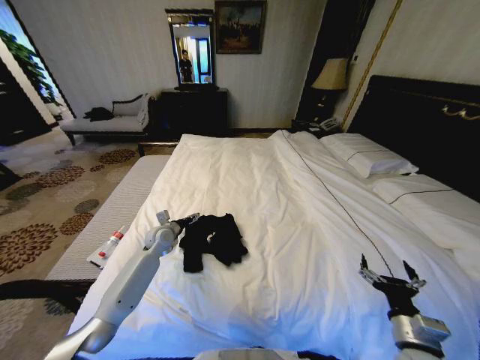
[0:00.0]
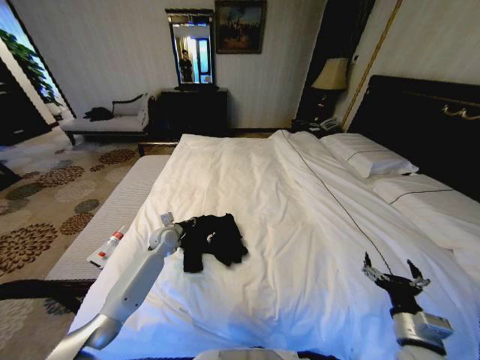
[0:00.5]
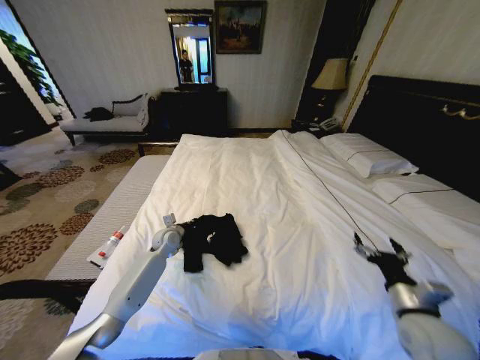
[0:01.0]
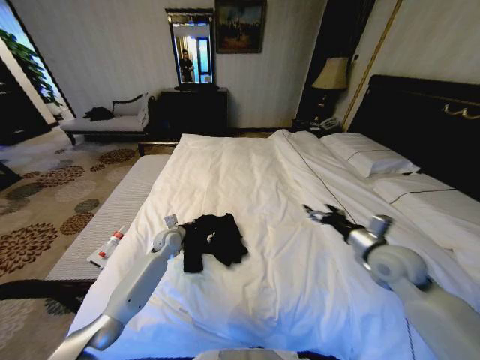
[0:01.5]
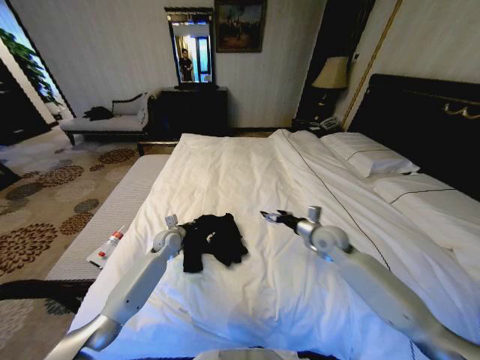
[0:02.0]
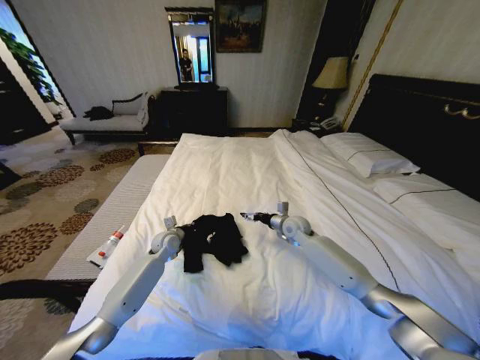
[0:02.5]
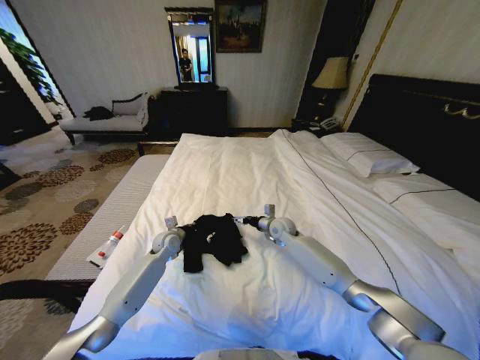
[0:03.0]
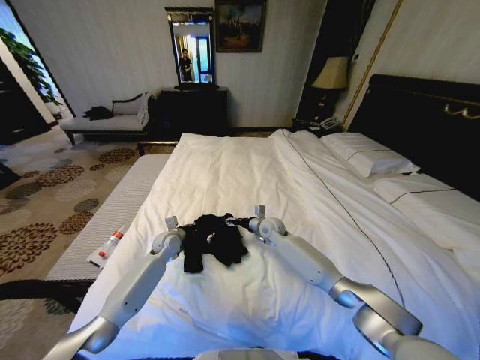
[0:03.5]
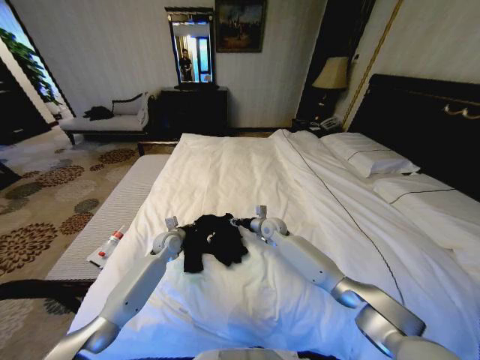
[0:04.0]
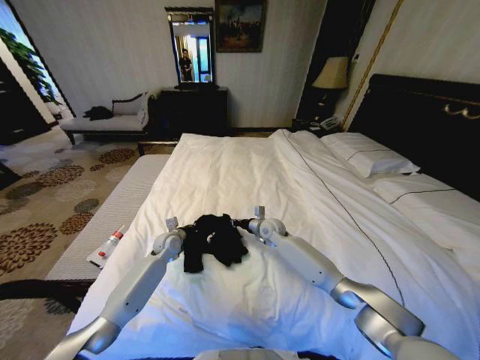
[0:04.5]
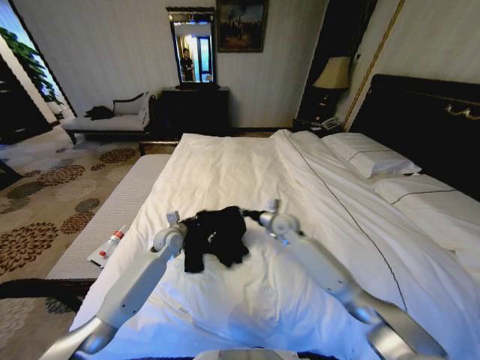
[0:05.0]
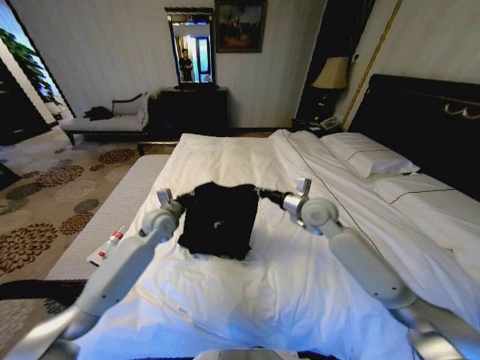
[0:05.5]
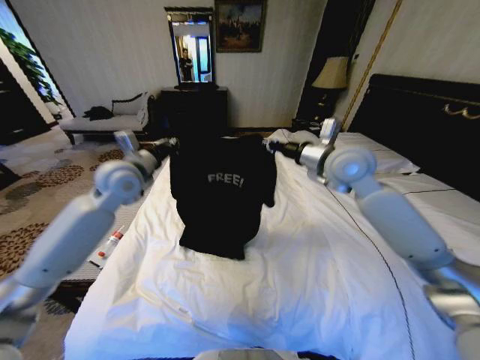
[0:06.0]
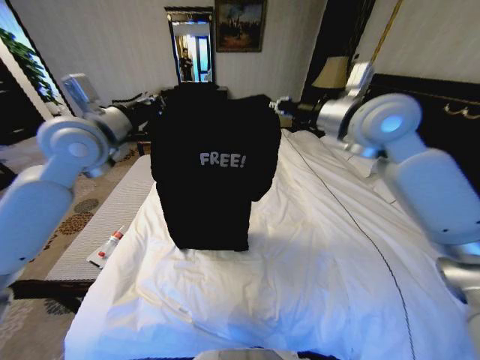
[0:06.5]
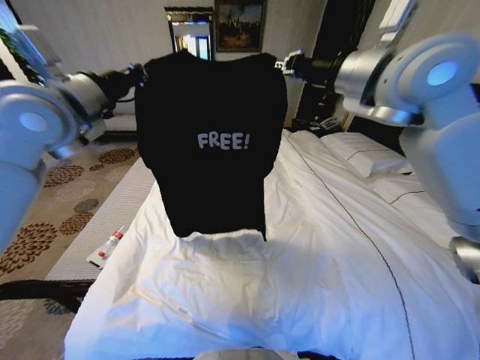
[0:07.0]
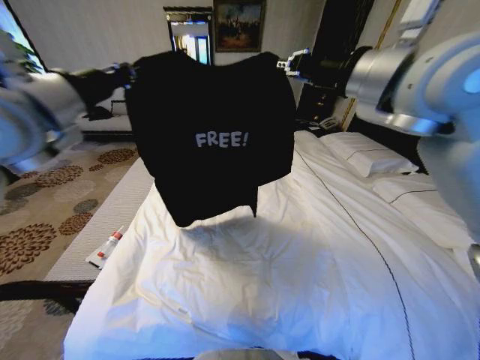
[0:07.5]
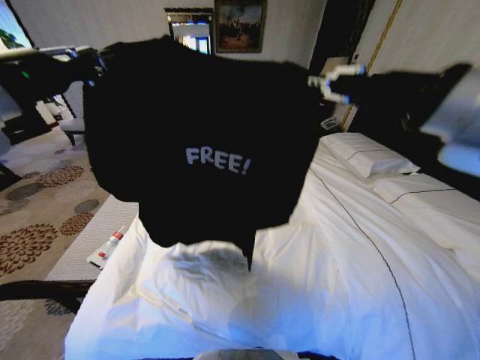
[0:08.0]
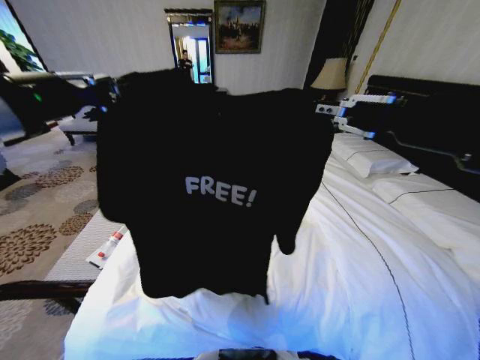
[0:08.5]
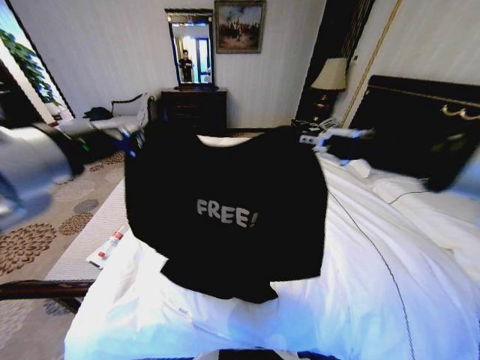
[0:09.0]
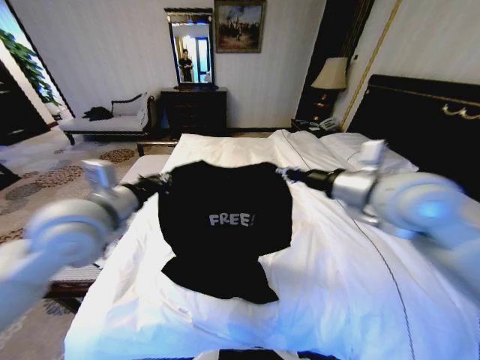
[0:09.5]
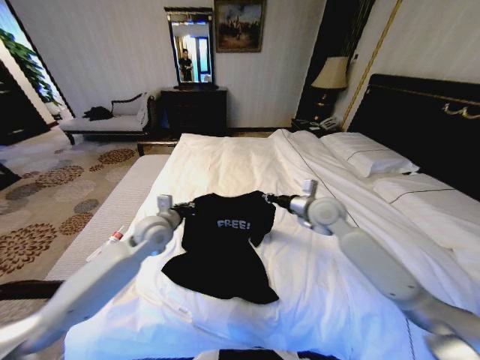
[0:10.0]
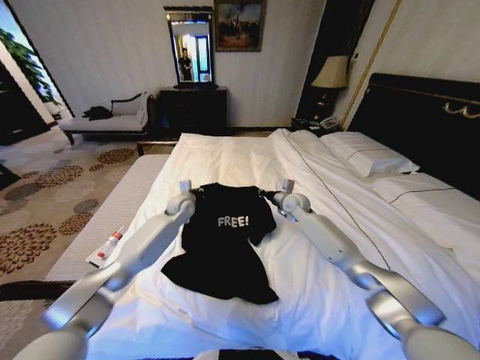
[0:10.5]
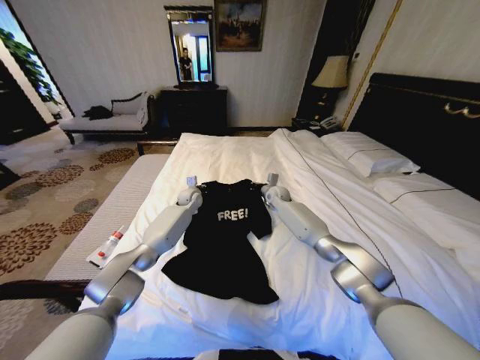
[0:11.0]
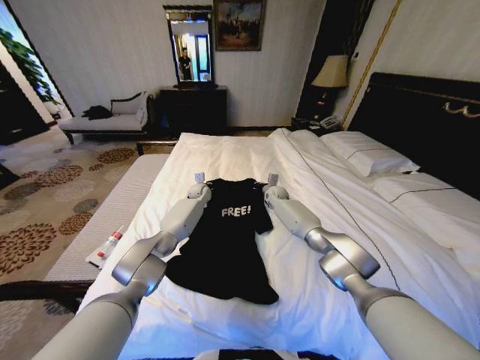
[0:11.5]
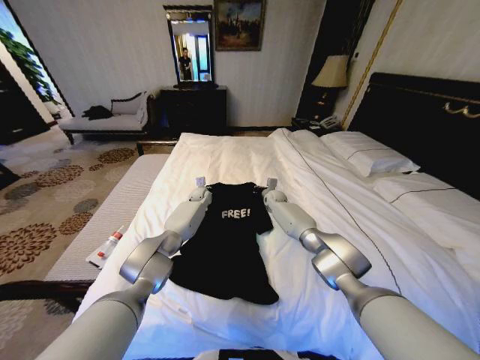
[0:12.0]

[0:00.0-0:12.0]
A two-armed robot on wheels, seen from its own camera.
Task of the whole recording: Fold the clothes on the bed.
0:00.0 to 0:02.0: The left gripper closes up. Meanwhile the right gripper moves forward, roughly 30 cm.
0:02.0 to 0:04.0: The right gripper is displaced to the left, forward and downward by some 15 cm, and closes its fingers.
0:04.0 to 0:06.0: The grippers both shift upward by about 30 cm. The right gripper closes.
0:06.0 to 0:08.0: The two grippers go some 25 cm backward and upward.
0:08.0 to 0:10.0: Both grippers travel together downward and forward, approximately 35 cm.
0:10.0 to 0:12.0: The right gripper travels forward and downward by some 30 cm, while the left gripper goes roughly 25 cm forward.

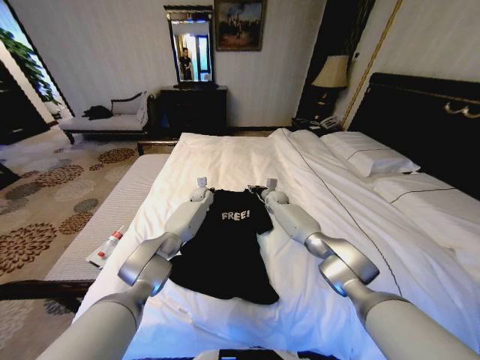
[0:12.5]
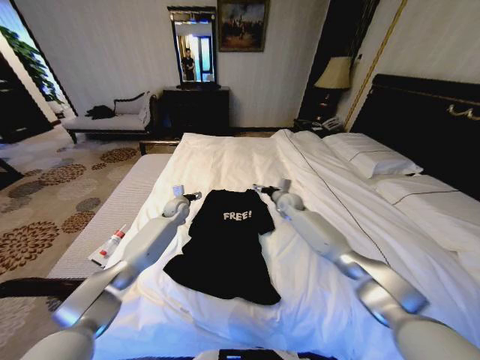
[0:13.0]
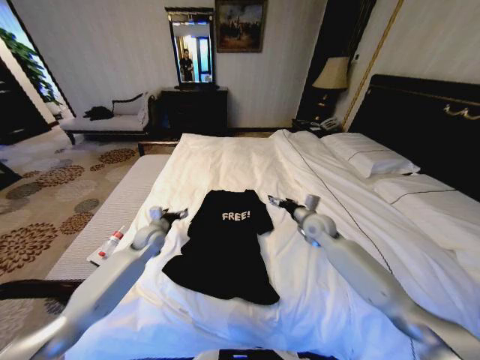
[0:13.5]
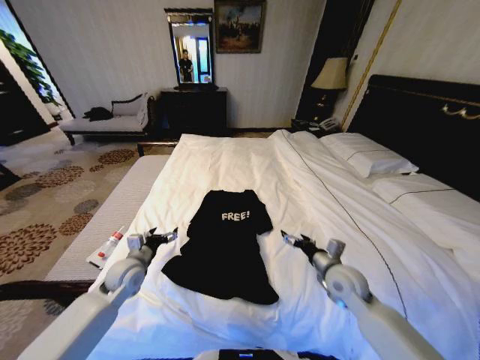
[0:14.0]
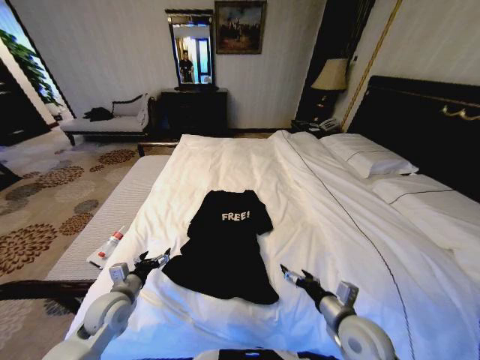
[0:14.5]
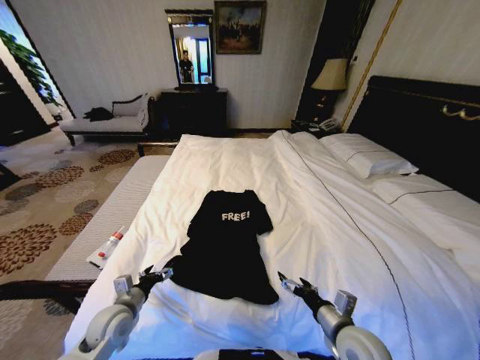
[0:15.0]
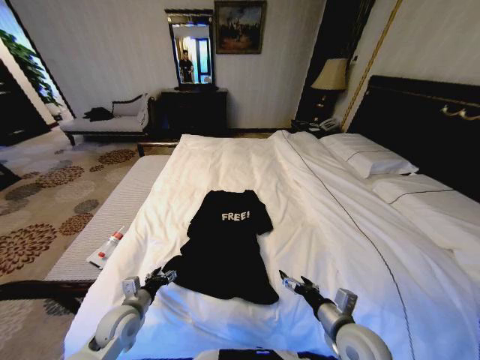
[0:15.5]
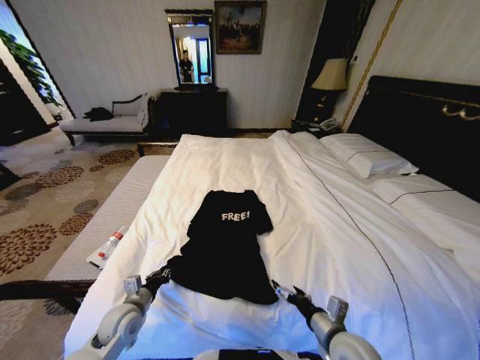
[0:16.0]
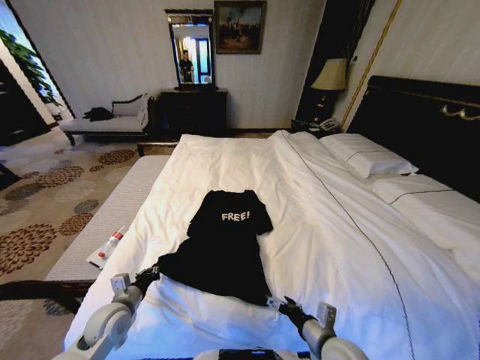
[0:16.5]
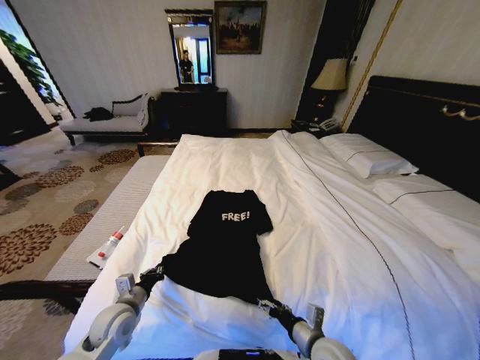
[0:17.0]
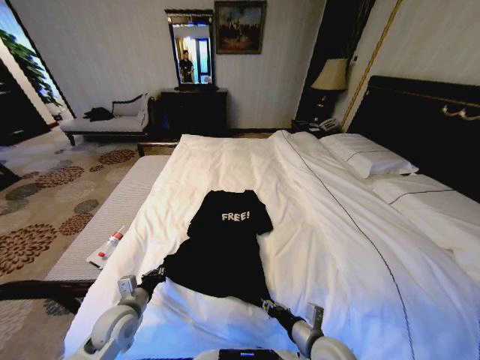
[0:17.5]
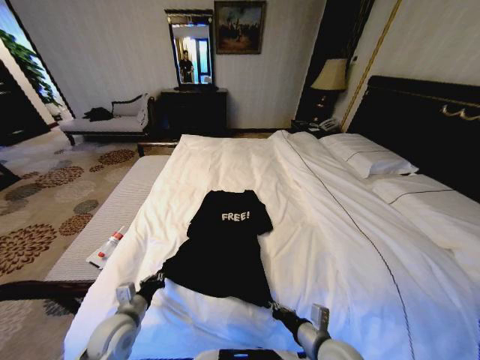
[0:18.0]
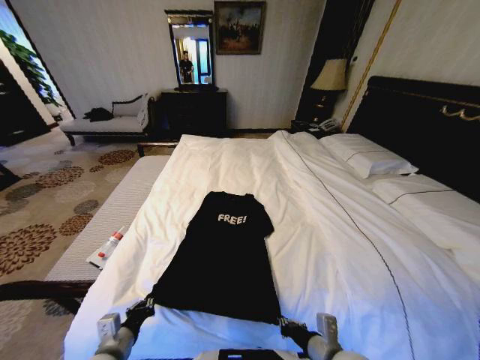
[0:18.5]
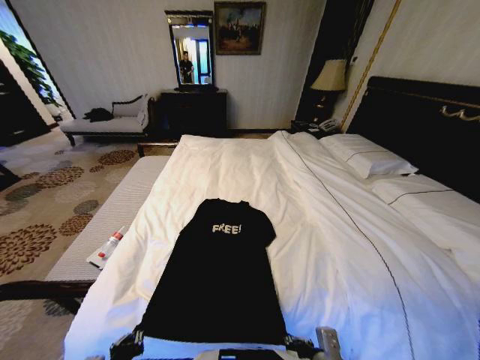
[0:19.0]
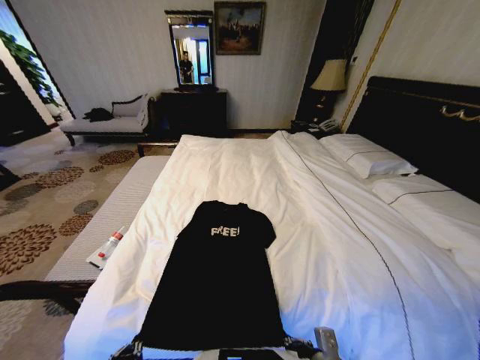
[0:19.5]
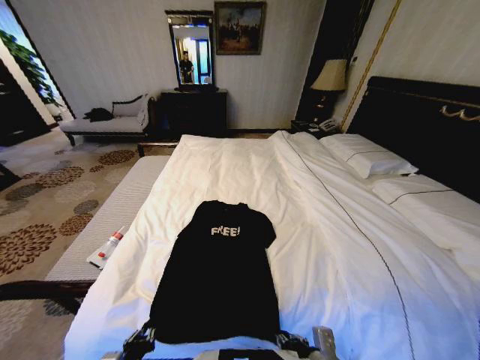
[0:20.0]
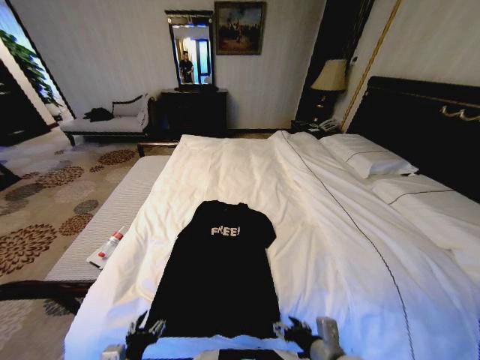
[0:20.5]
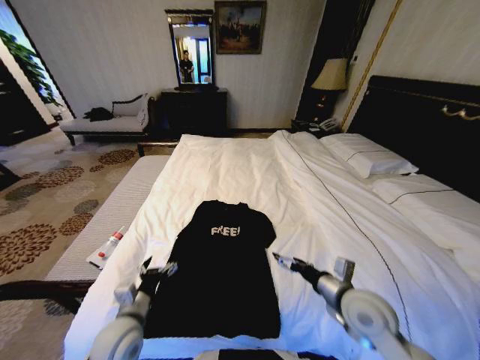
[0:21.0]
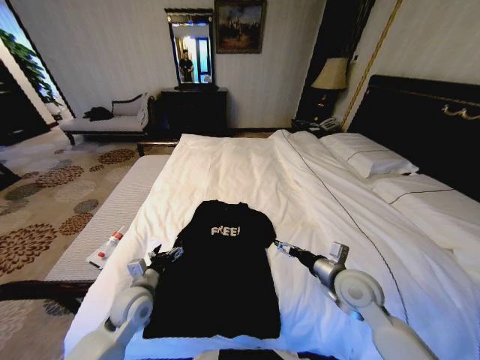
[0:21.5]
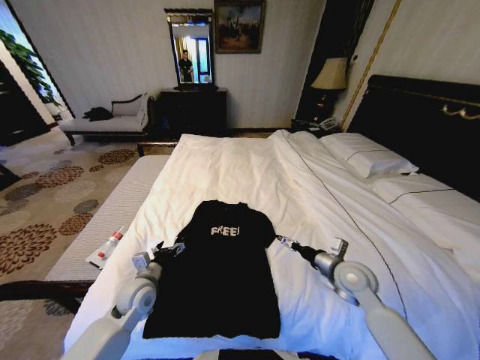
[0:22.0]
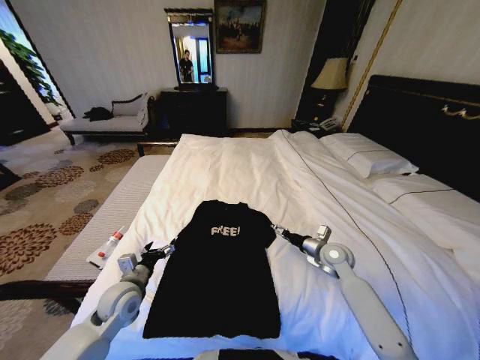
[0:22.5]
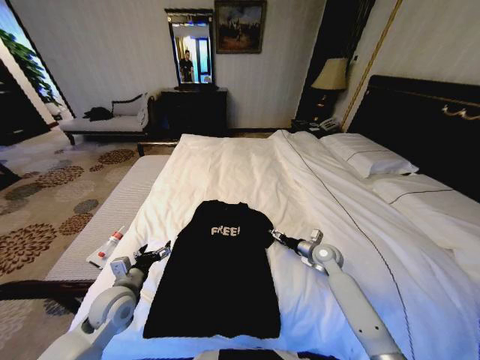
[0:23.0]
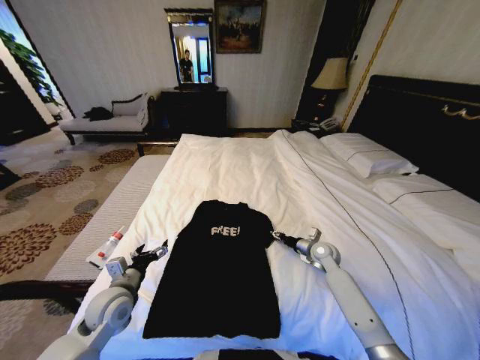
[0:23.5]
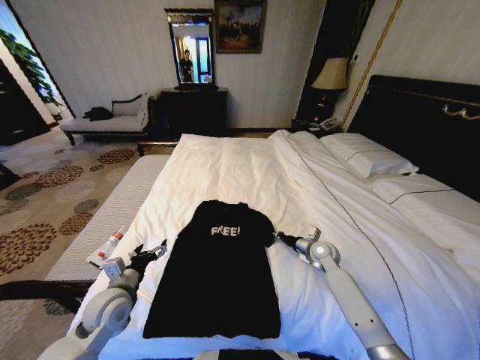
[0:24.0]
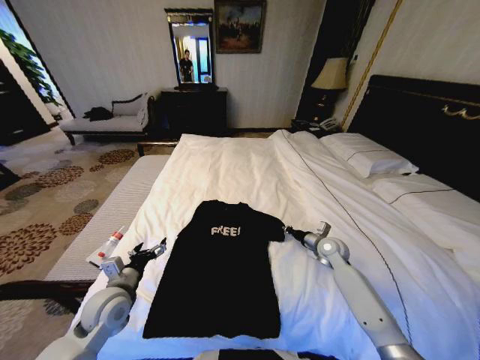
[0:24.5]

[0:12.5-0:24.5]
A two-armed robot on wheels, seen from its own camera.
Task of the whole recording: Fold the clothes on the bed.
0:12.5 to 0:14.5: The left gripper is displaced backward and to the left by approximately 50 cm, and opens its fingers. Meanwhile the right gripper moves backward, some 50 cm, and opens up.
0:14.5 to 0:16.5: The right gripper moves some 5 cm, while the left gripper closes.
0:16.5 to 0:18.5: The left gripper heads backward, covering some 10 cm; the right gripper closes.
0:18.5 to 0:20.5: The left gripper is displaced backward by some 5 cm, and opens its fingers, while the right gripper opens its fingers.
0:20.5 to 0:22.5: Both grippers move forward, about 25 cm.
0:22.5 to 0:24.5: The right gripper shifts by roughly 5 cm, and closes its fingers.

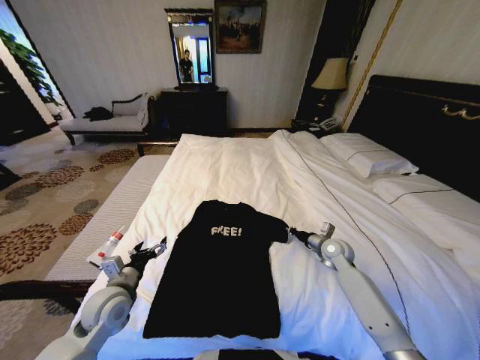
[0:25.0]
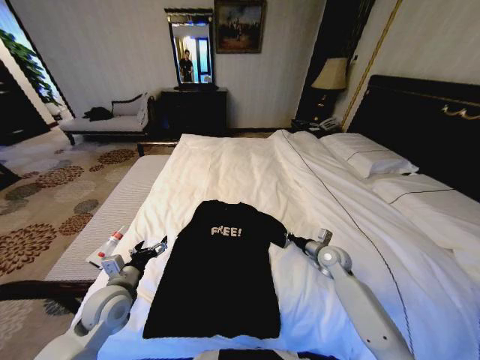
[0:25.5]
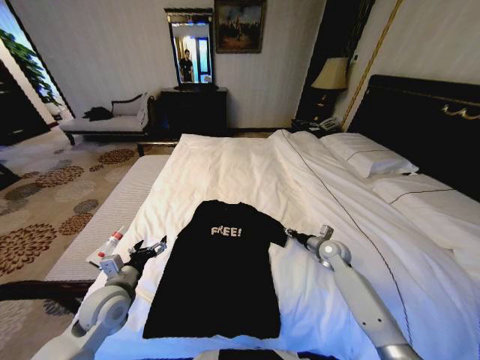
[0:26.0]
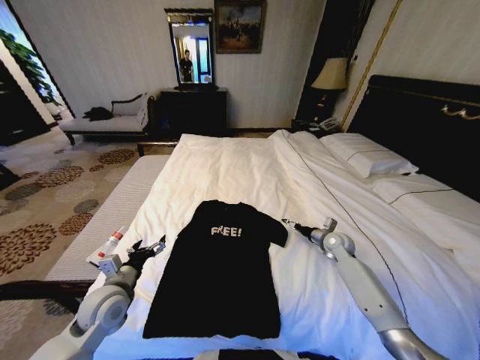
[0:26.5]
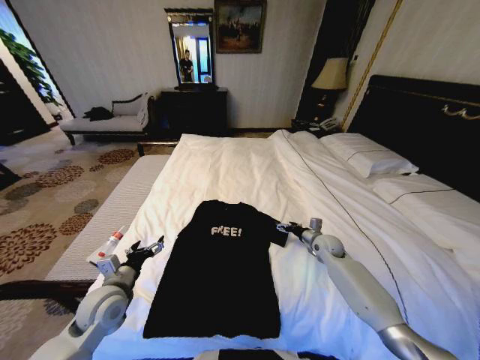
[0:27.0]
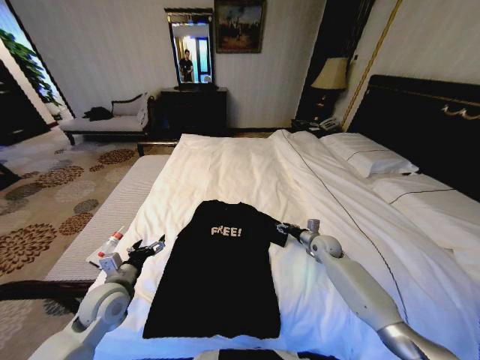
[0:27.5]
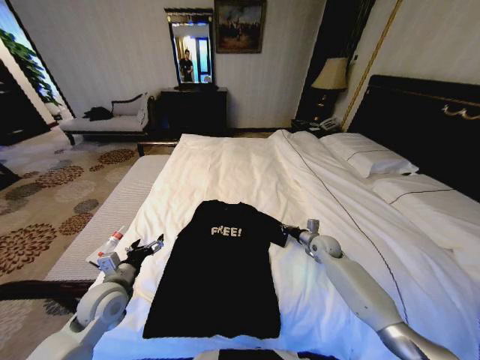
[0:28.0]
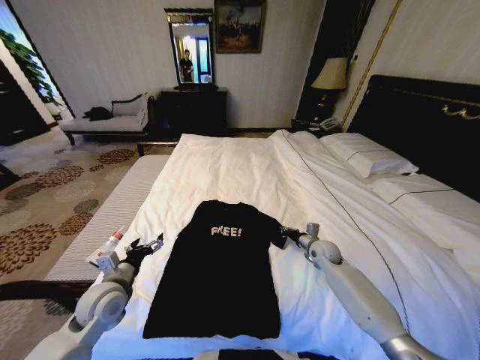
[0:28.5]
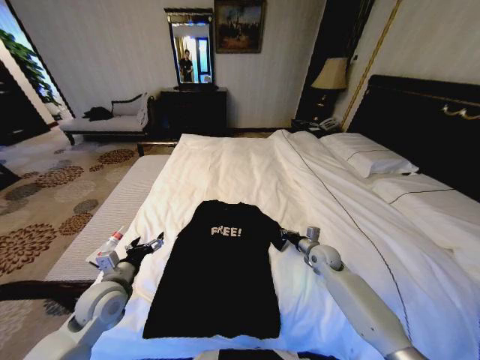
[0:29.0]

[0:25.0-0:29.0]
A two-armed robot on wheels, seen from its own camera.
Task of the whole recording: Fold the clothes on the bed.
0:25.0 to 0:27.0: The right gripper opens up.
0:27.0 to 0:29.0: The right gripper changes place by roughly 5 cm, and closes.
